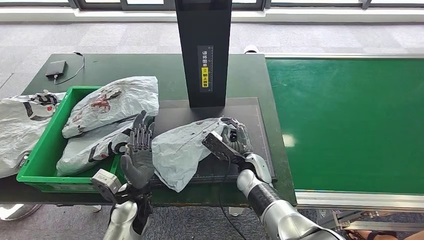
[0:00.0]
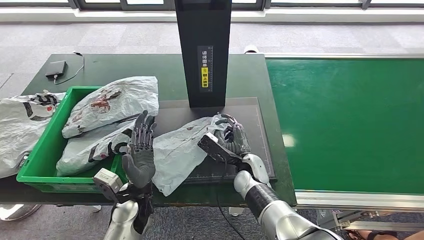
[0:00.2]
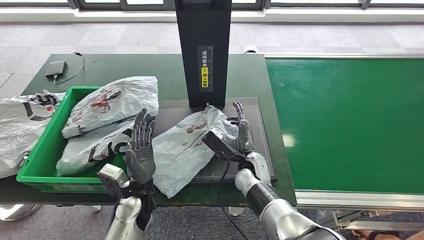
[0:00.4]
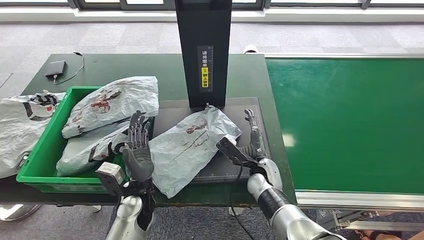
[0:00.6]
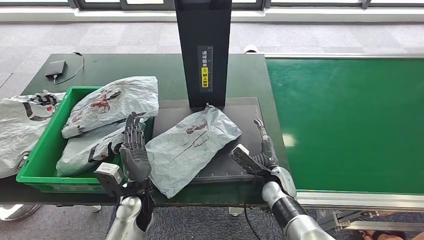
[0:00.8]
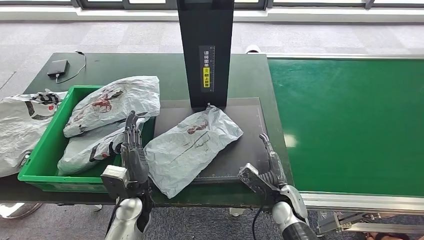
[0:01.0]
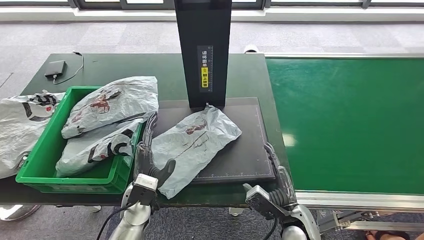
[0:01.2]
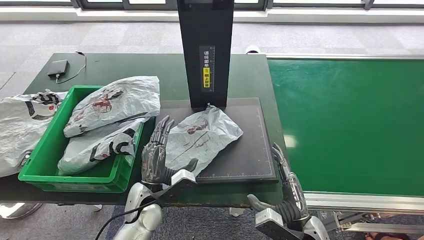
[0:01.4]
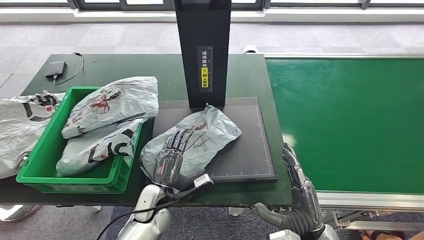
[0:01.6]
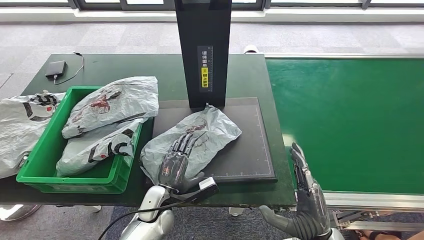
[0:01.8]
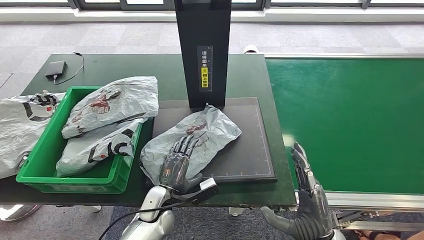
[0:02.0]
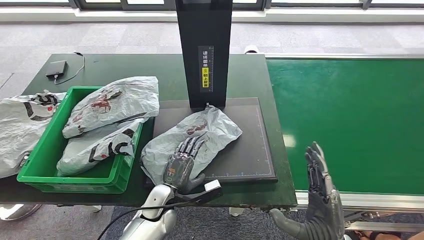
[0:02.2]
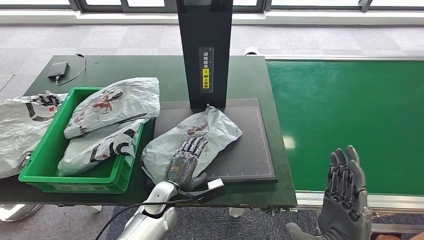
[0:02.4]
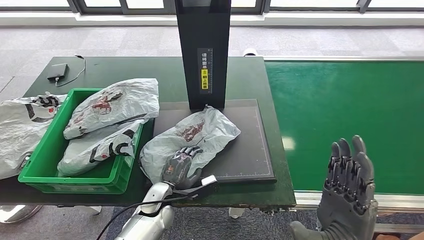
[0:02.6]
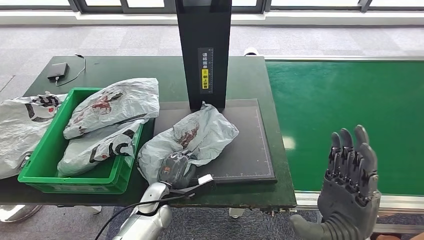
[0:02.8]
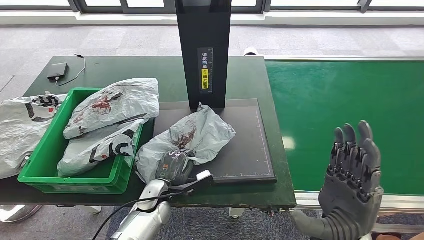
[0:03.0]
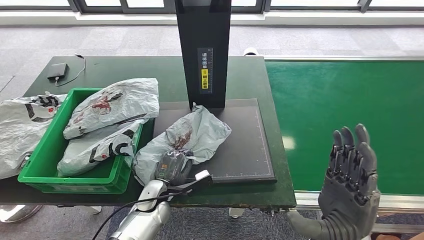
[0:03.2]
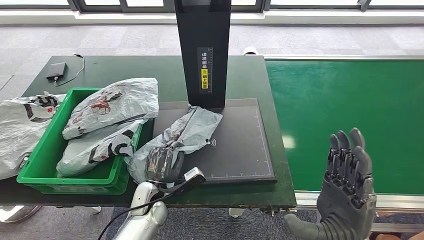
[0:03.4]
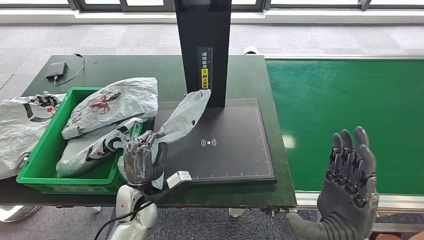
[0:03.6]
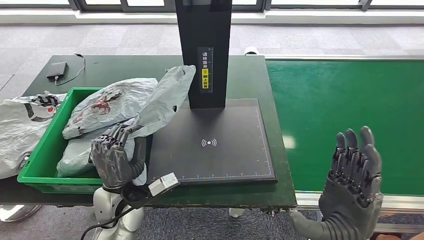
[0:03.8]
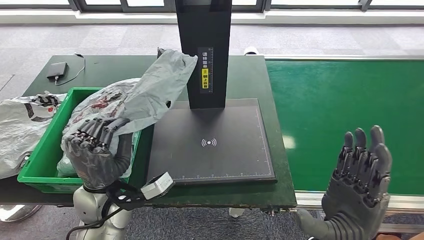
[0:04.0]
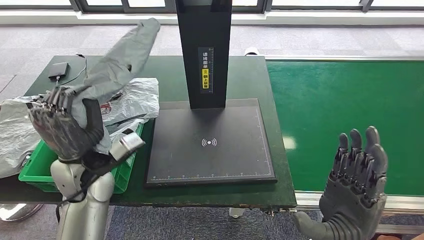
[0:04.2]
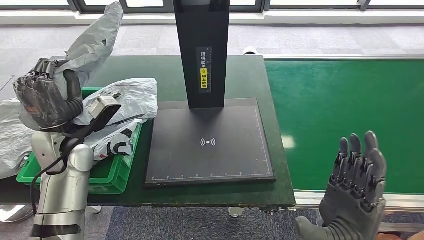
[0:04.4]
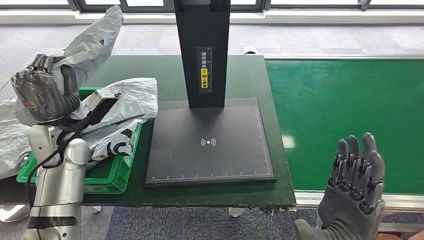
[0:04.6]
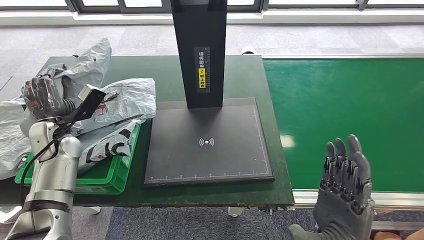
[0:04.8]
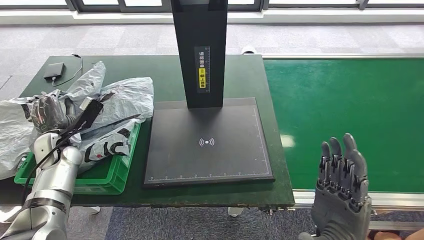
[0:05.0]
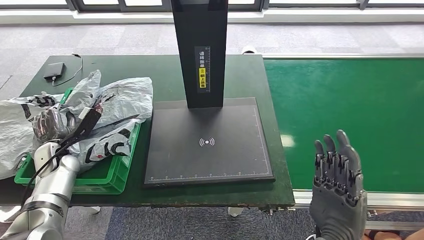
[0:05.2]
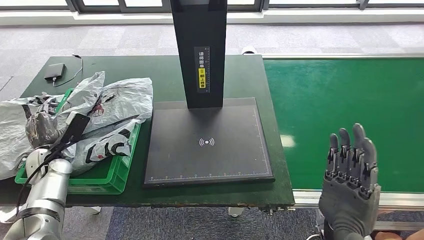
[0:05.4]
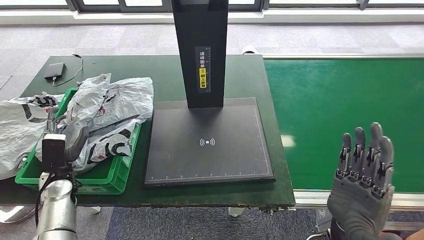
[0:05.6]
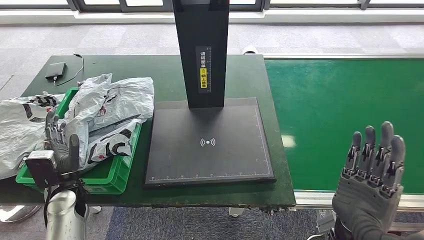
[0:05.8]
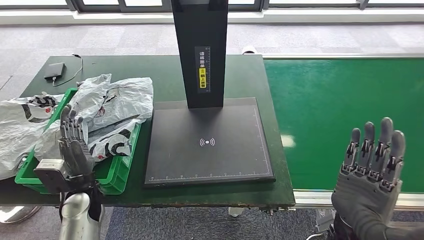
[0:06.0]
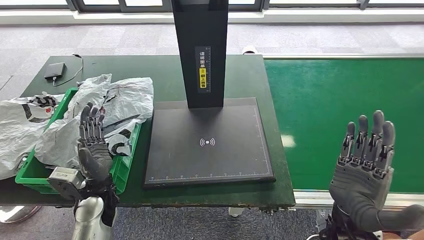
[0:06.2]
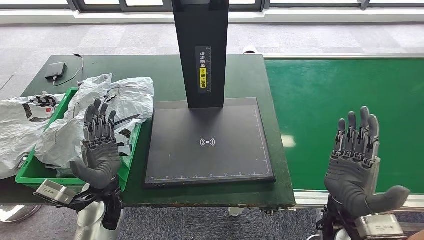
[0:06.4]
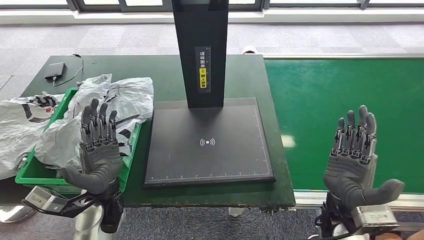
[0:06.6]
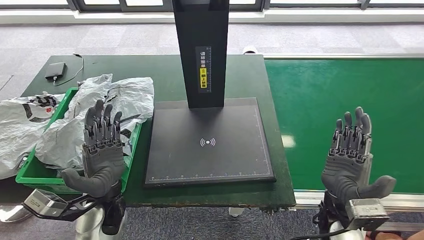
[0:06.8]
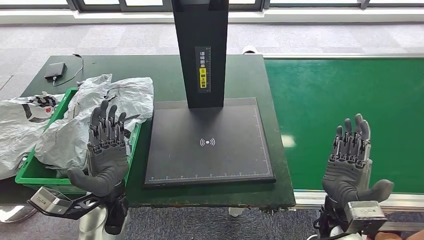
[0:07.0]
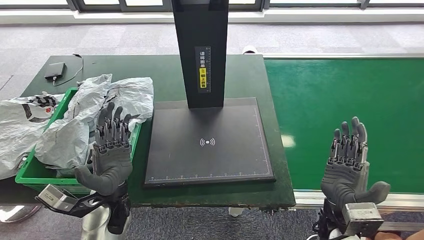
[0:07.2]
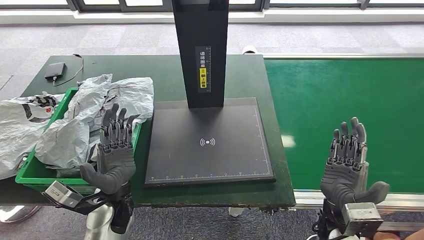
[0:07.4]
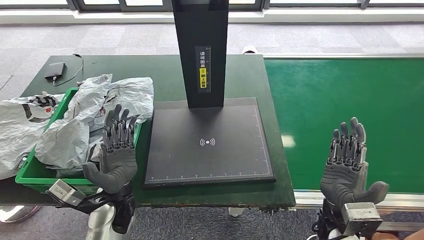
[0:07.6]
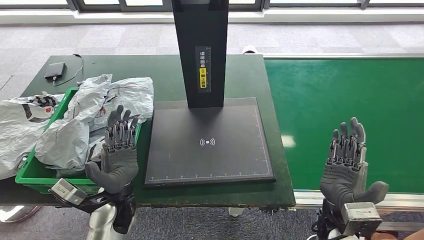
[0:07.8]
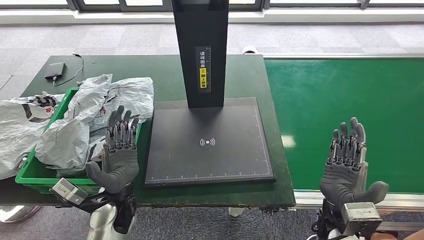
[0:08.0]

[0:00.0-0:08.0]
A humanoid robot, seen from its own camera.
Step, 0:00.0 to 0:01.8: Place the parcel onto the inbound machine.
Step, 0:02.2 to 0:03.6: Pick up the parcel from the inbound machine.
Step, 0:03.8 to 0:08.0: Place the parcel into the delivery box.
0:00.0 to 0:01.6: The right hand travels backward and to the right by some 20 cm.
0:06.4 to 0:08.0: The hands stay close to where they were, moving slightly.

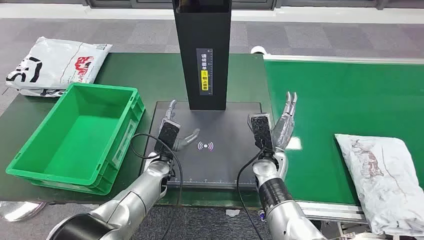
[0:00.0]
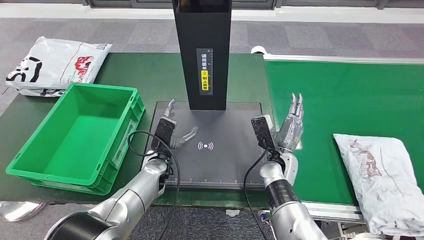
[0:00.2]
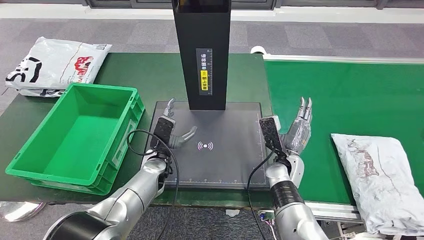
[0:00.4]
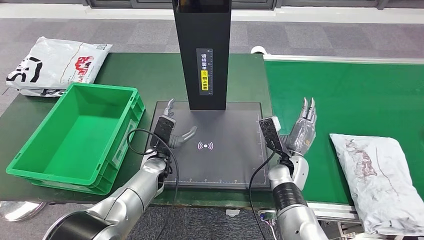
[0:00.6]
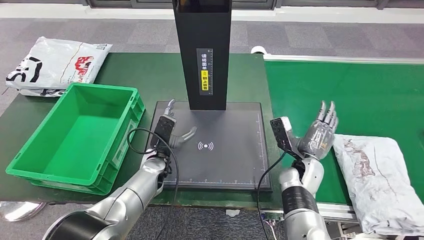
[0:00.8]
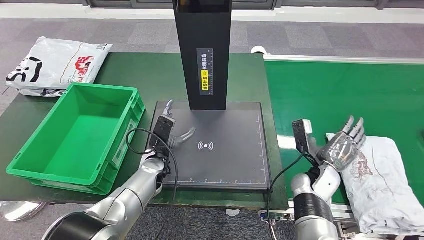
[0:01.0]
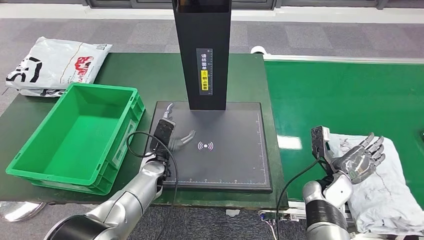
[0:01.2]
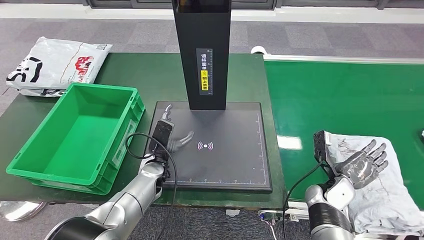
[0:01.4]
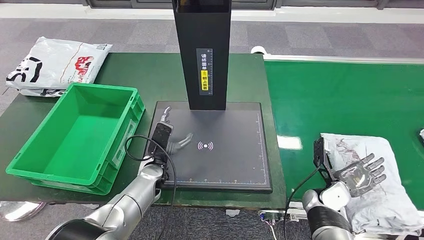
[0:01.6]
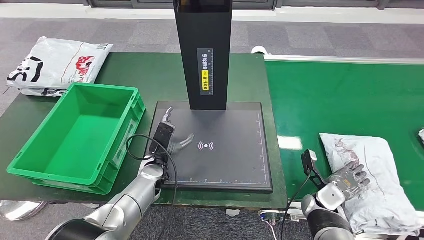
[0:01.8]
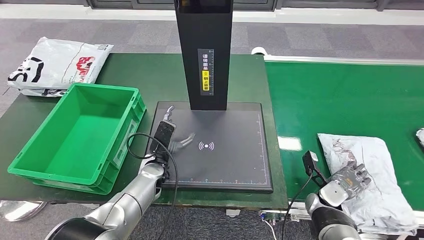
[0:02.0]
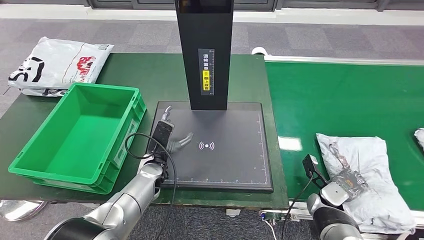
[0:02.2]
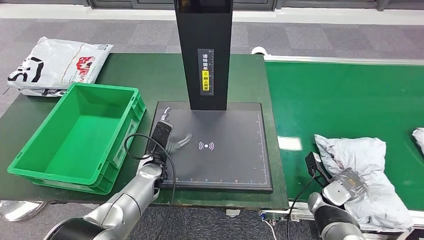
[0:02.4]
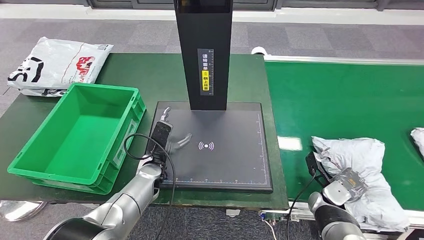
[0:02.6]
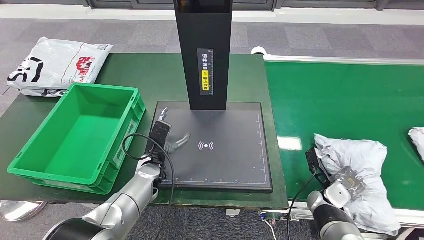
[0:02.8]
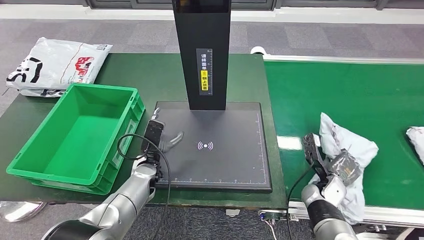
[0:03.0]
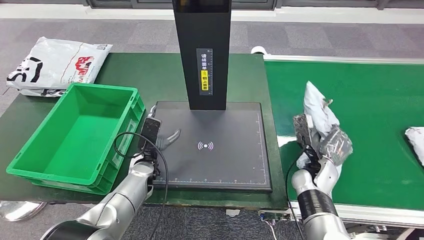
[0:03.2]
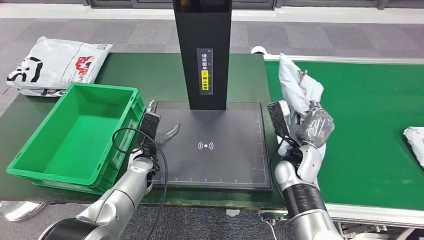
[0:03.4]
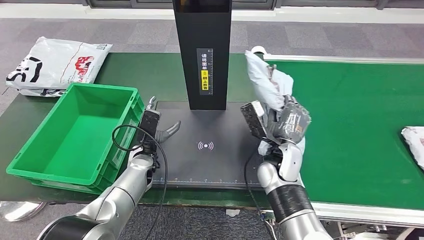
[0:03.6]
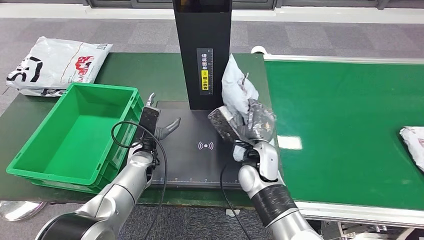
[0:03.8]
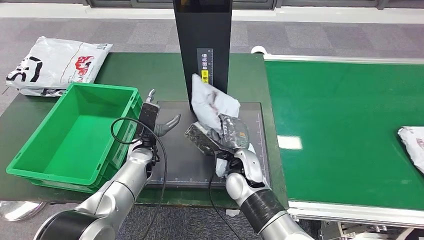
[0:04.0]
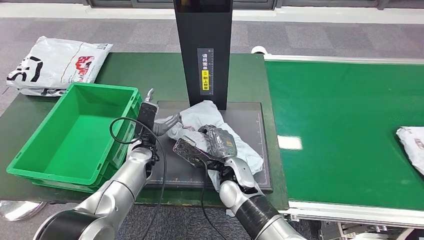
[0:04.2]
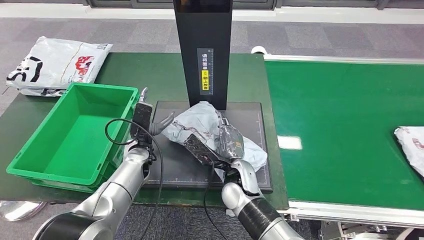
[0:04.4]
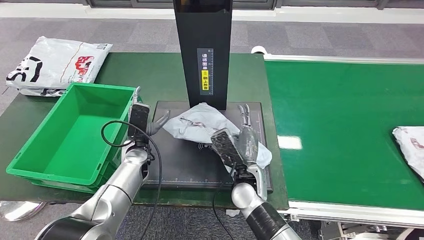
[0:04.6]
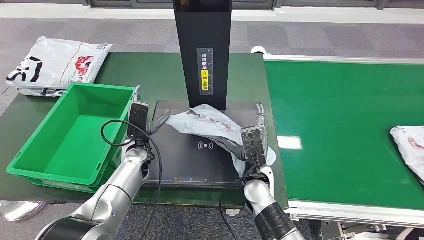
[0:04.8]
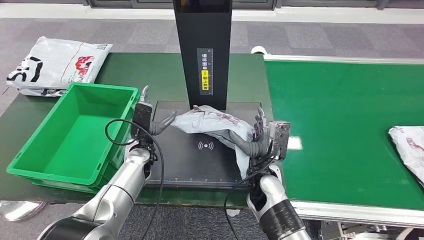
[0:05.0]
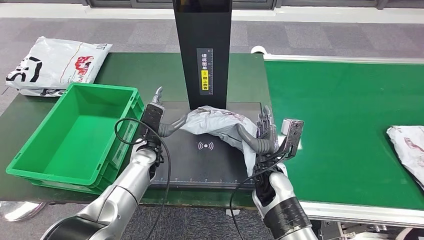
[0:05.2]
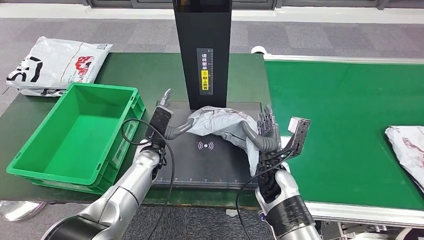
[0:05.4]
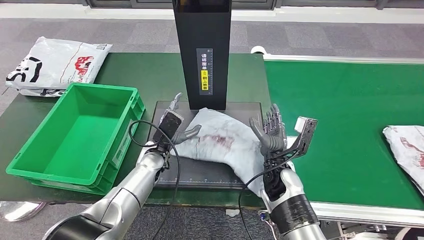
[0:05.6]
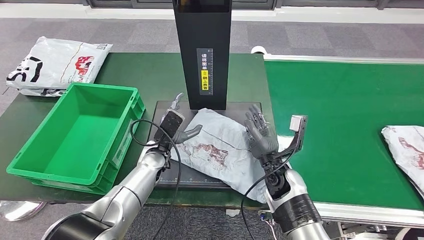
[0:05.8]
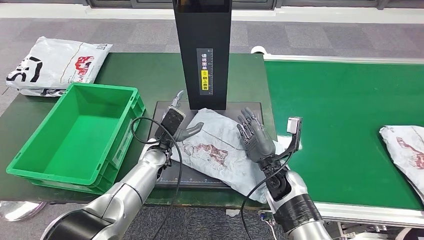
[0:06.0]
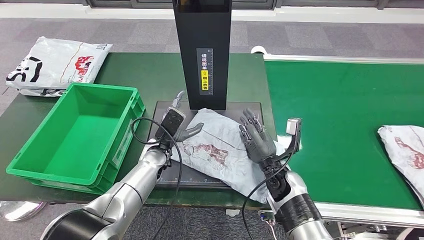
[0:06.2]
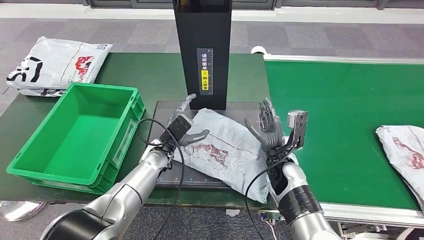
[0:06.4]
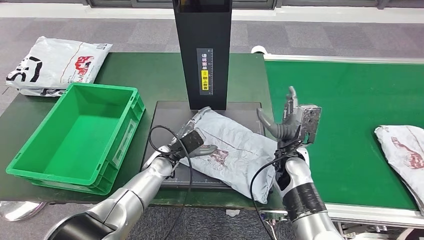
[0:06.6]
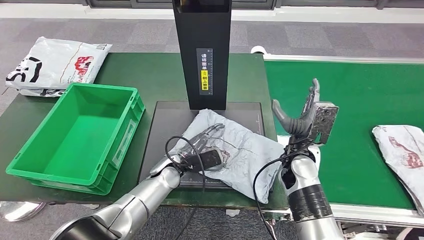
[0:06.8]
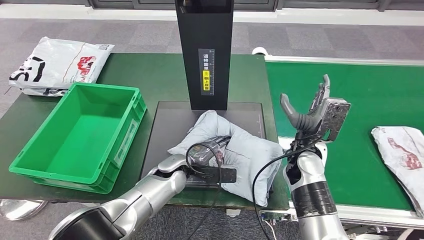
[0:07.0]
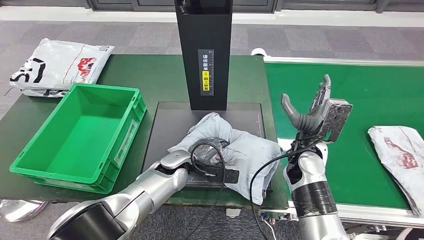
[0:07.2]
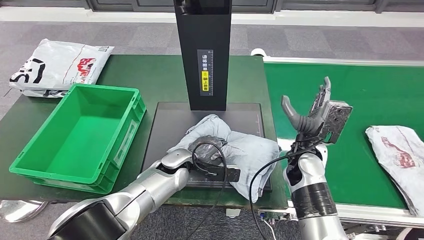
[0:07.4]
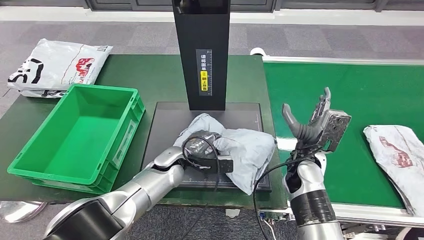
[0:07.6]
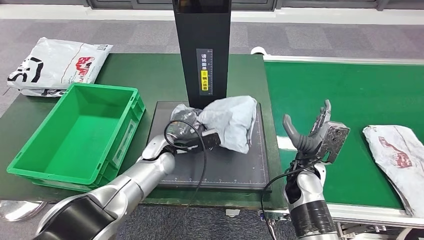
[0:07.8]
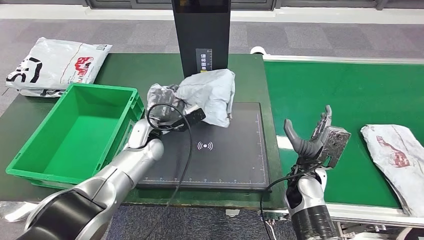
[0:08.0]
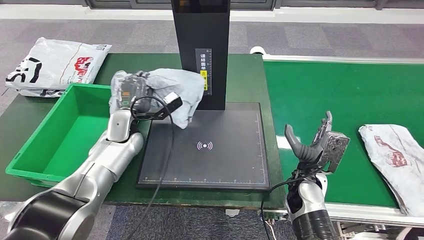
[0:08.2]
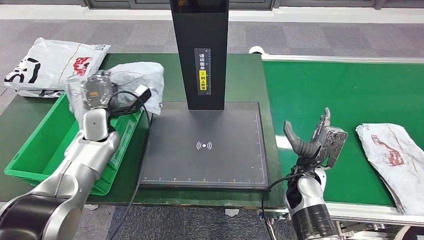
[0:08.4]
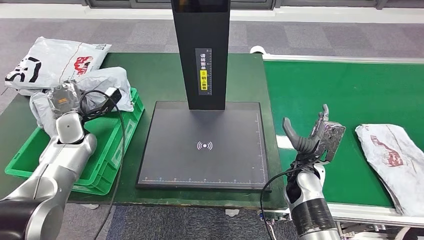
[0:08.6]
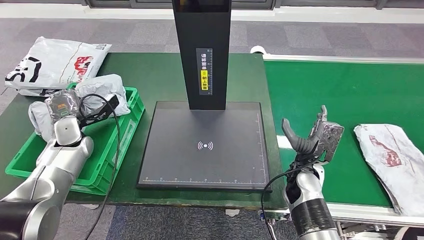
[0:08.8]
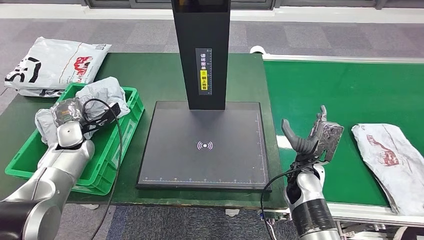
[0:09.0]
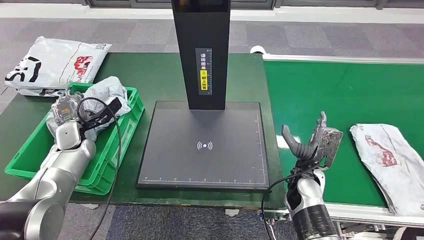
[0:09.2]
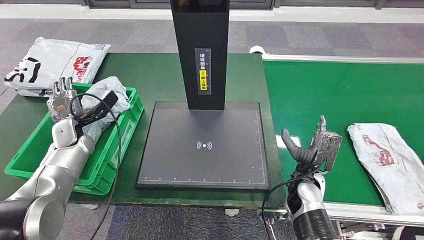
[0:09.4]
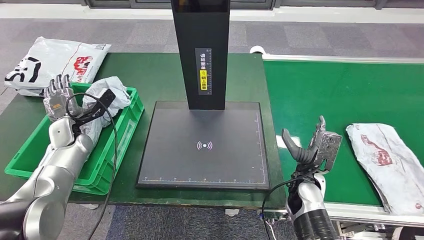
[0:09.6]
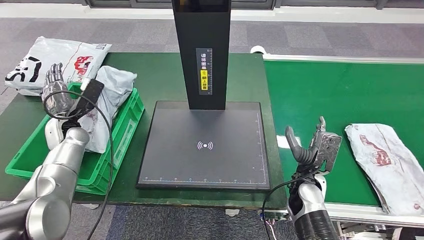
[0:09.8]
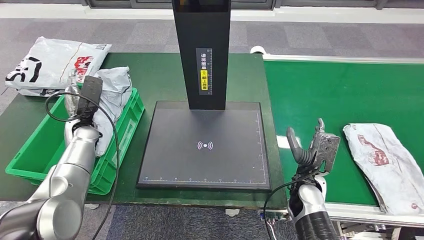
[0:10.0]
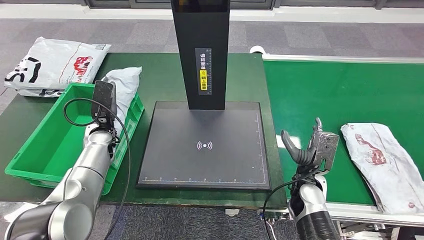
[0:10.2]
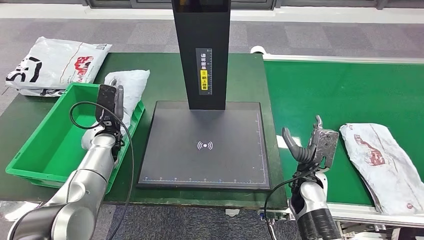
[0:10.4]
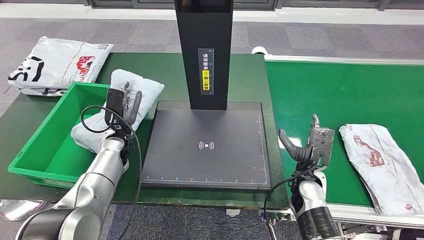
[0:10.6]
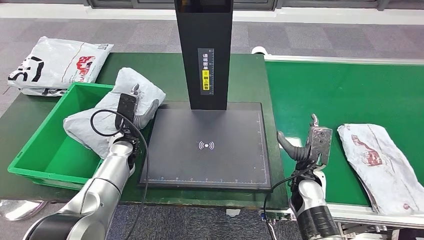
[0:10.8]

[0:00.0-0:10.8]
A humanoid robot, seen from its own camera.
Step, 0:00.0 to 0:03.6: Take the parcel off the conveyor belt.
Step, 0:03.8 to 0:06.2: Place the parcel onto the inbound machine.
Step, 0:06.4 to 0:08.2: Pick up the parcel from the inbound machine.
Step, 0:08.4 to 0:10.0: Put the parcel inside the courier box.
0:04.6 to 0:06.2: The right hand shifts roughly 10 cm to the right, while the left hand moves to the right, some 5 cm.
